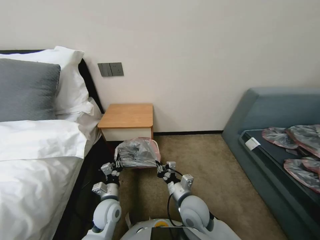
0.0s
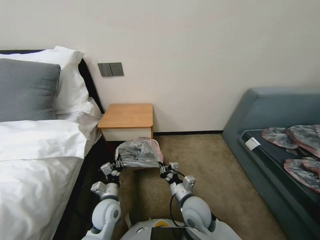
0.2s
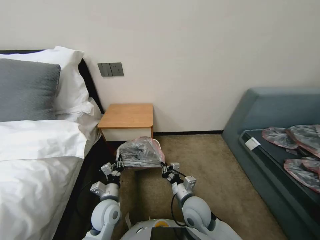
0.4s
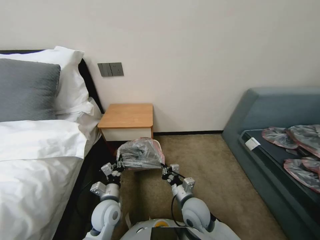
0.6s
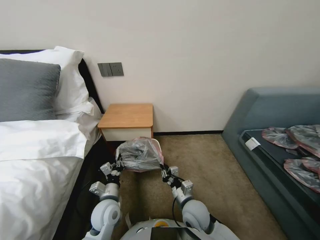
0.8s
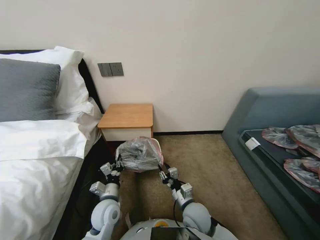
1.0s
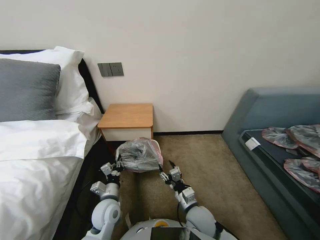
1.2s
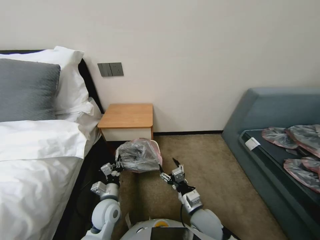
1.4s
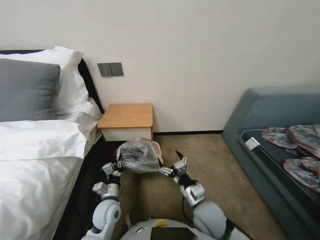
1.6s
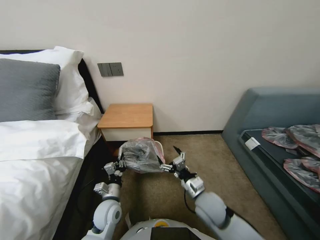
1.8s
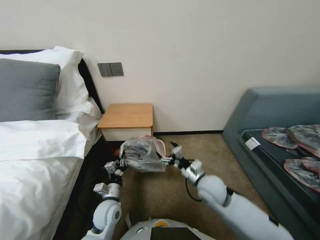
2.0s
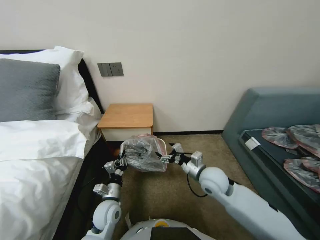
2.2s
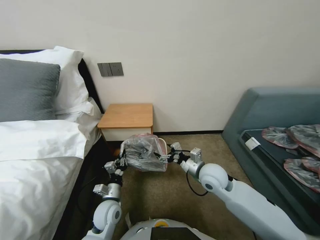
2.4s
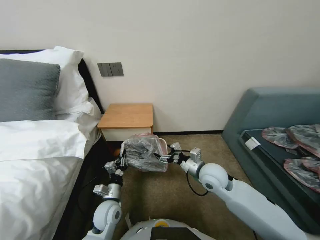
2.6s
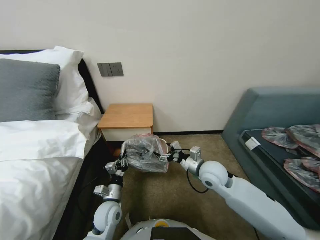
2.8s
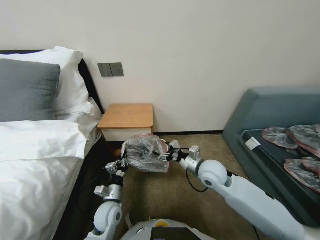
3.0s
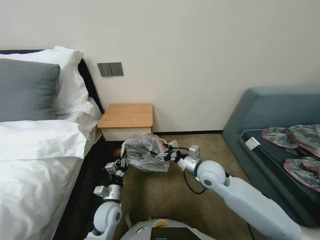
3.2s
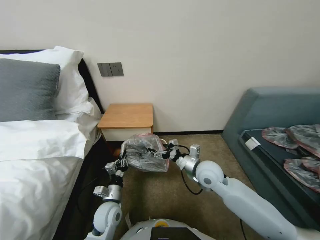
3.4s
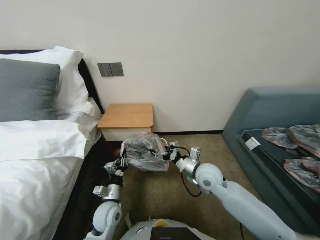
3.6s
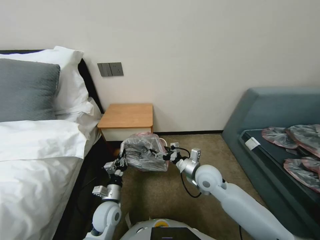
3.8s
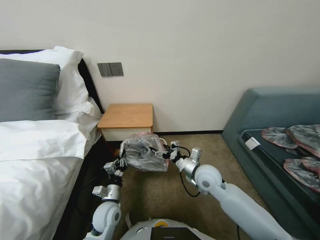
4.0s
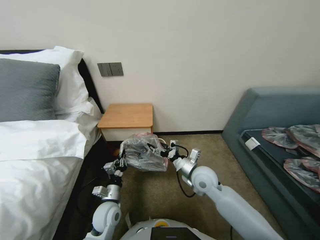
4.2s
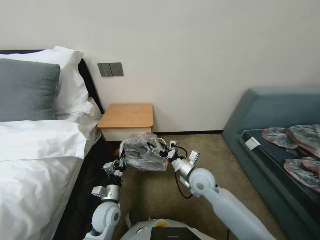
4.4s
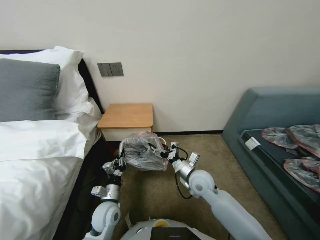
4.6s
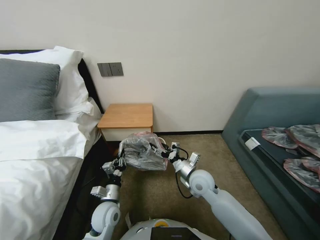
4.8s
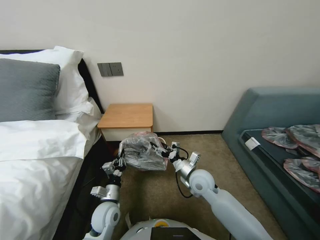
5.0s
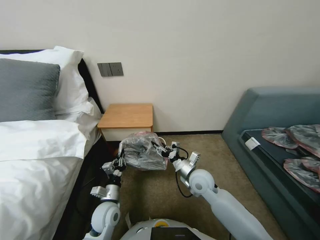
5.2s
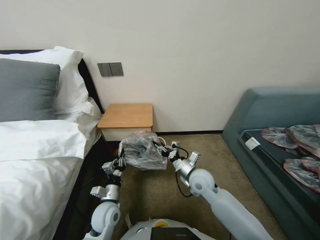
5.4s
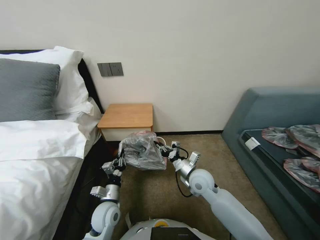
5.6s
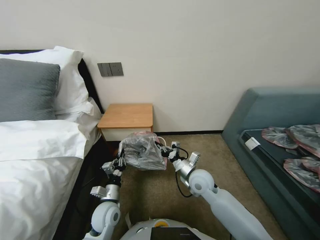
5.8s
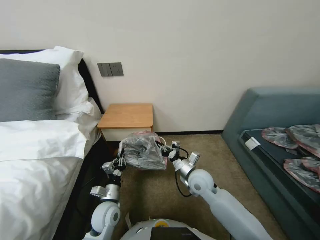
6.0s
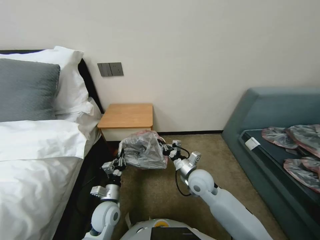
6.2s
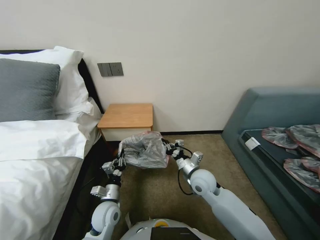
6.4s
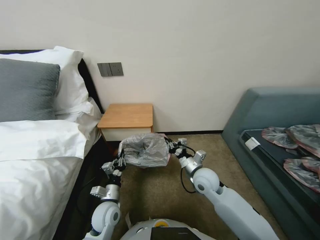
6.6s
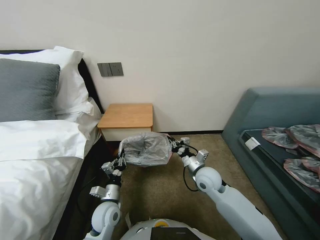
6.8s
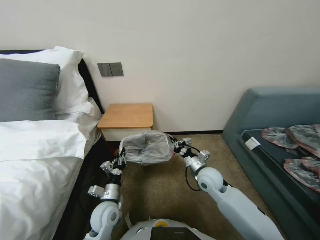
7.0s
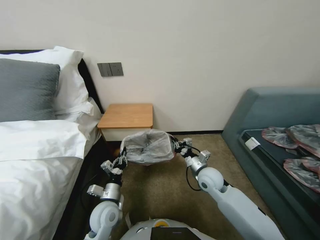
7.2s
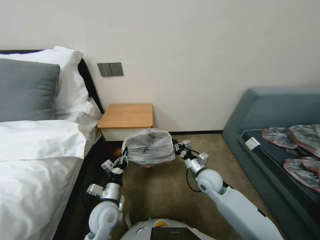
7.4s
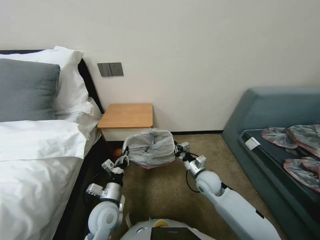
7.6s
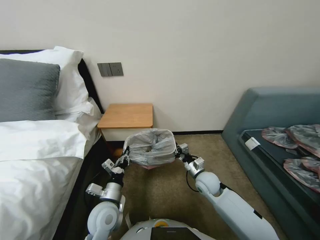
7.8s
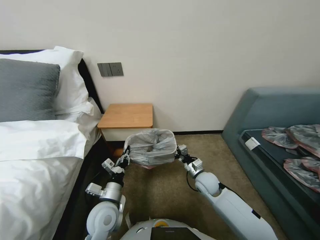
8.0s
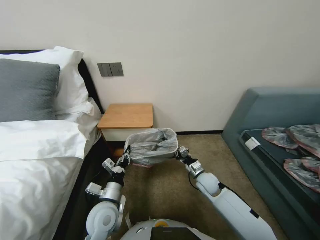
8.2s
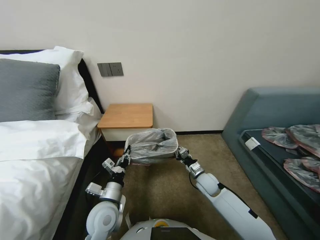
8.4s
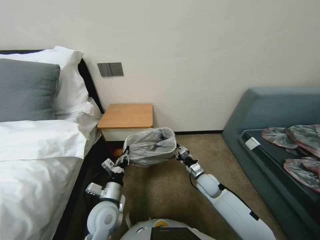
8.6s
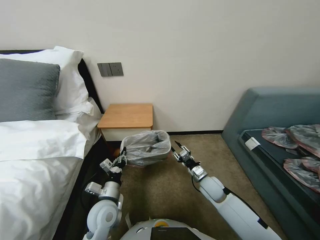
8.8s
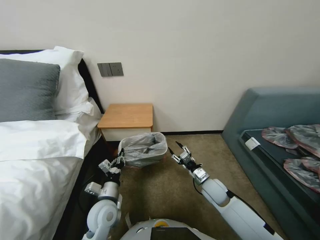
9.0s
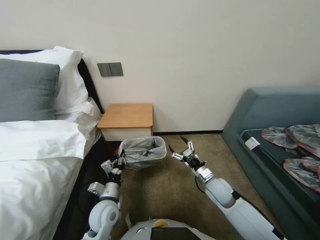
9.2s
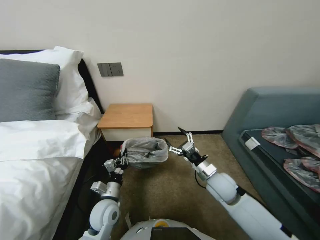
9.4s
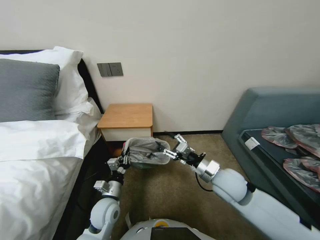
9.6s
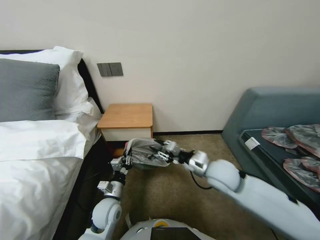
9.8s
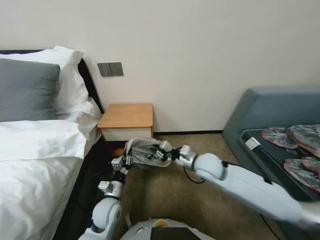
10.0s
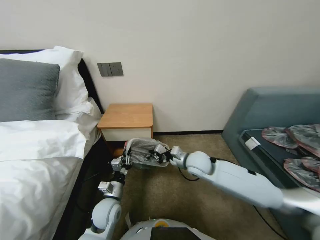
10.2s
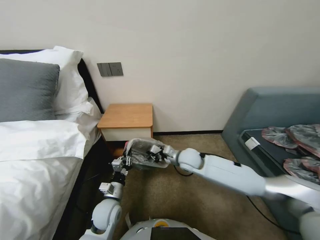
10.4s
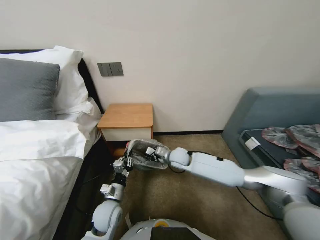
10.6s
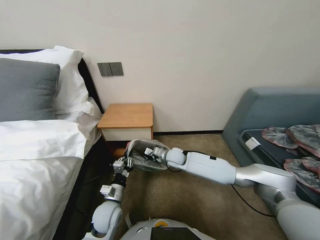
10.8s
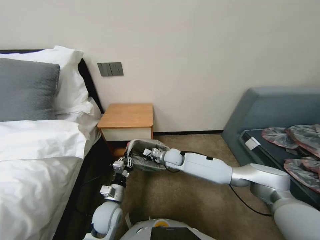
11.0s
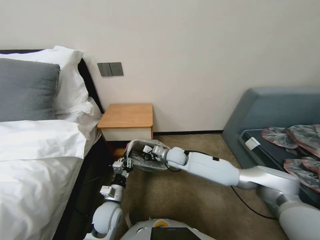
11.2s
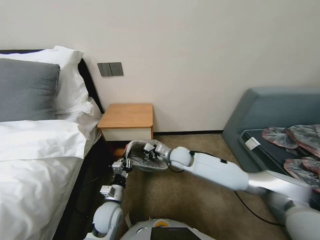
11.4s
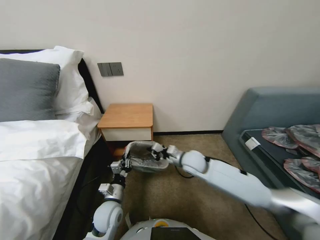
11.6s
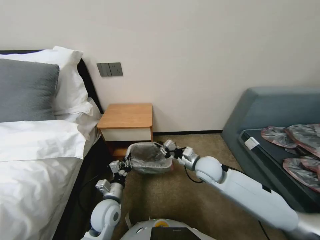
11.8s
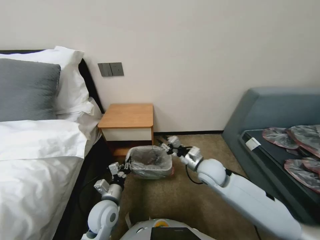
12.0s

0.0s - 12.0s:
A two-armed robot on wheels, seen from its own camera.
Task of the whole recording: Pick up the garbage bag from the table and place it over the trash can.
0.0s - 1.6s: The right gripper changes place by about 5 cm, and opens its fingers.
1.6s - 3.0s: The right gripper heads forward and upward, covering some 15 cm.
4.4s - 6.0s: The right gripper closes its fingers.
6.0s - 7.6s: The right gripper ends up some 5 cm from where it was.
7.6s - 9.0s: The right gripper opens its fingers.
9.0s - 10.4s: The right gripper travels upward, to the left and forward by roughly 15 cm, and closes up.

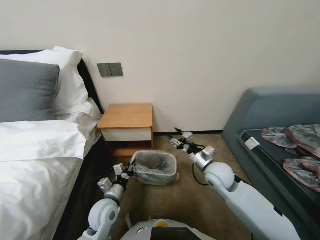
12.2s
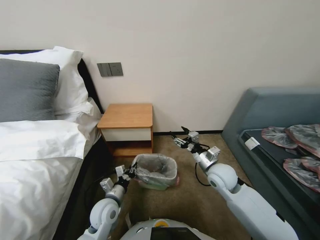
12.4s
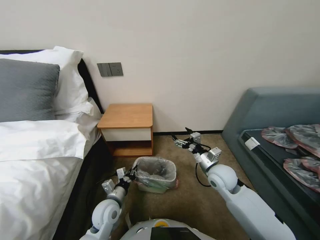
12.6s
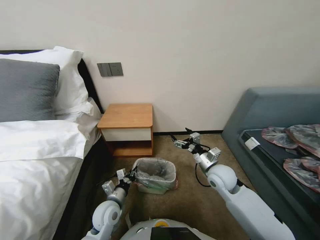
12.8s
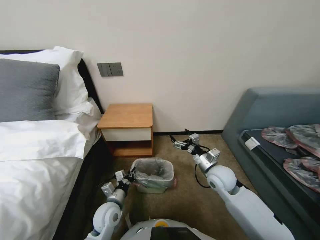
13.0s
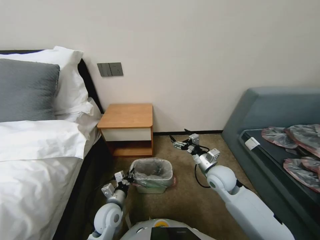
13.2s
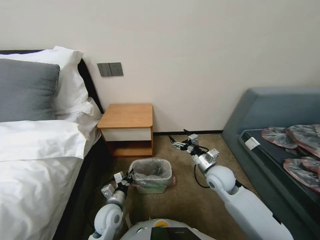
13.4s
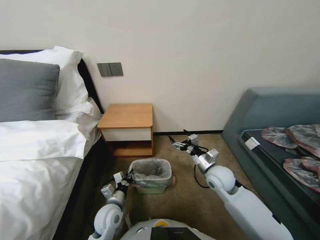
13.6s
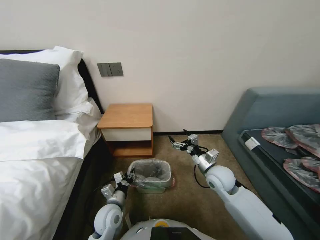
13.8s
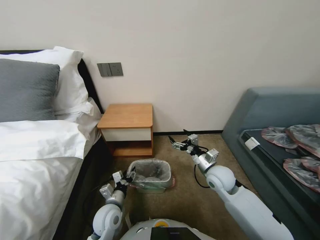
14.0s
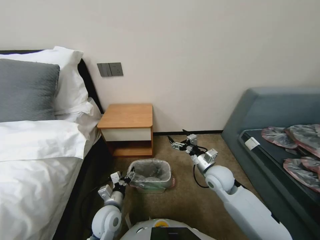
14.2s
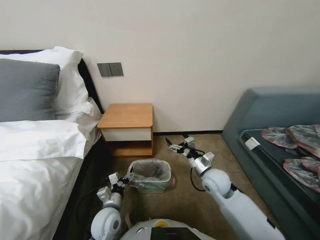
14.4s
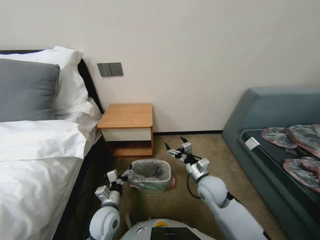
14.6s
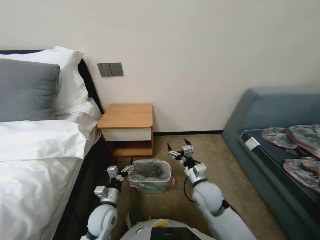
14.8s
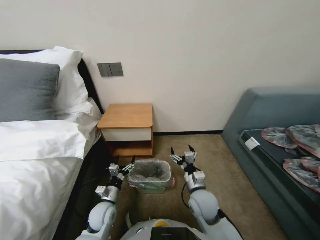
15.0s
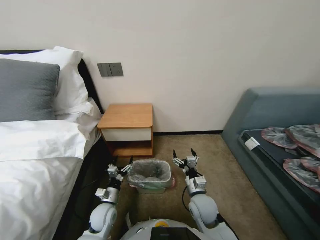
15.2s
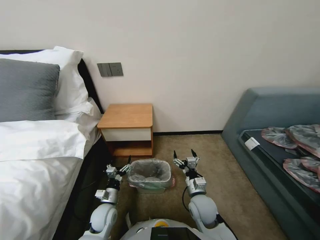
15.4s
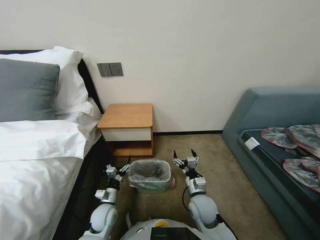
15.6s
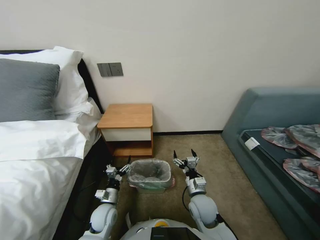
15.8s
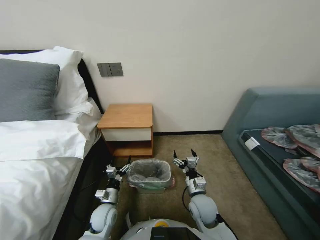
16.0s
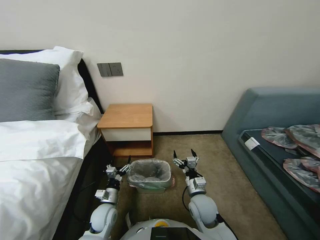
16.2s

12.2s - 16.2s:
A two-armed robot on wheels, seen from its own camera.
Task of the whole recording: Pick up the garbage bag from the table and place it over the trash can.
12.2s - 13.6s: The right gripper opens its fingers.
13.6s - 14.8s: The right gripper travels to the left by approximately 5 cm, while the left gripper opens.
14.8s - 16.2s: The grippers both shift downward by approximately 5 cm.

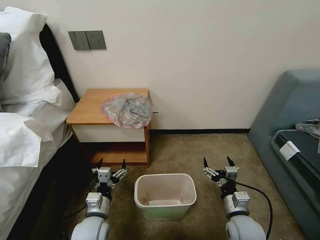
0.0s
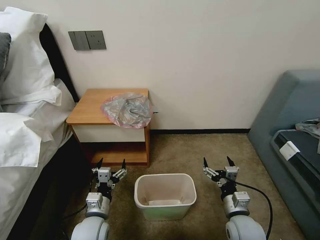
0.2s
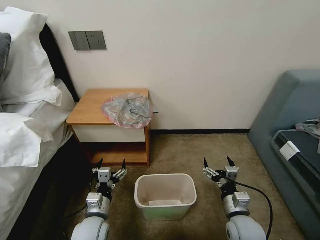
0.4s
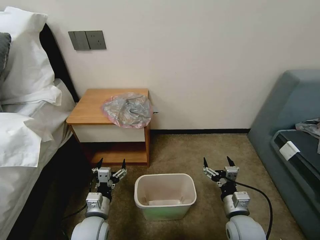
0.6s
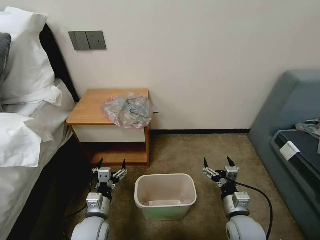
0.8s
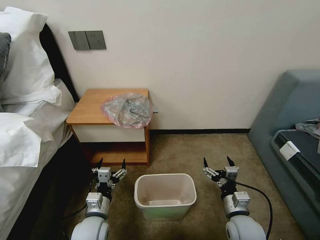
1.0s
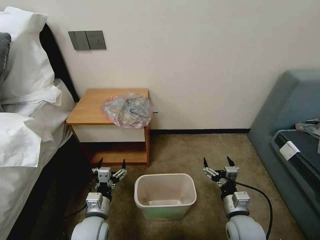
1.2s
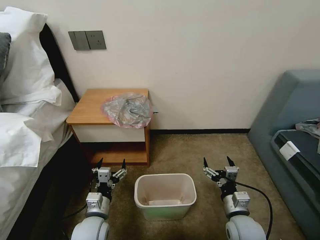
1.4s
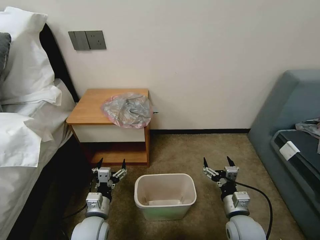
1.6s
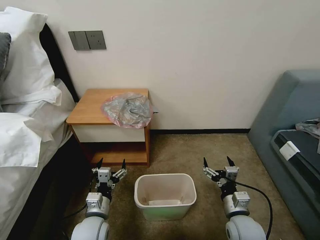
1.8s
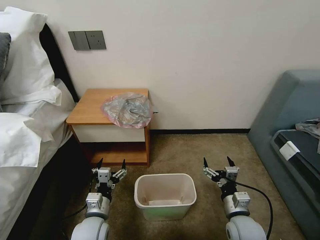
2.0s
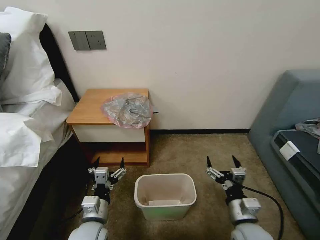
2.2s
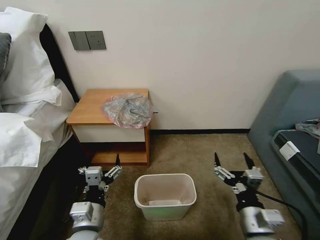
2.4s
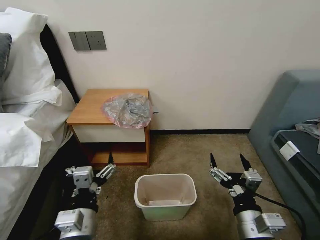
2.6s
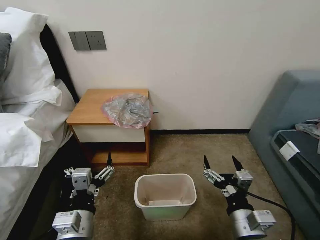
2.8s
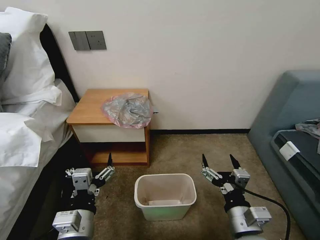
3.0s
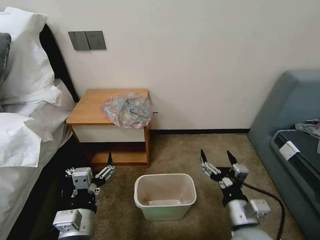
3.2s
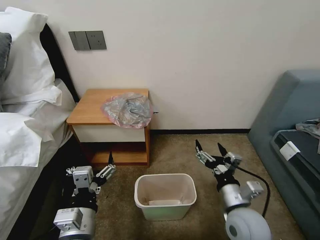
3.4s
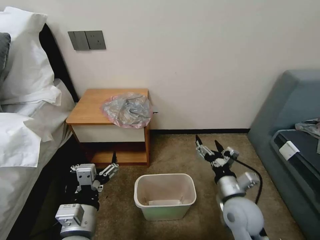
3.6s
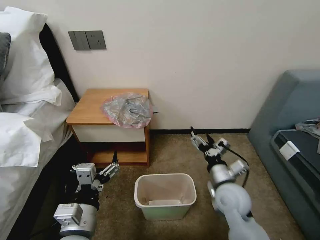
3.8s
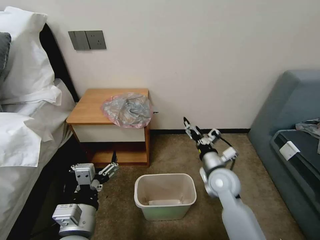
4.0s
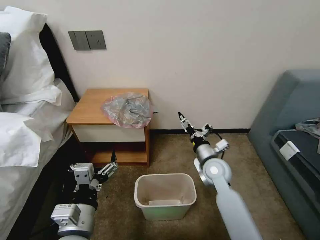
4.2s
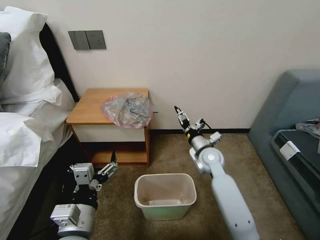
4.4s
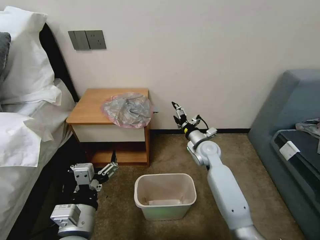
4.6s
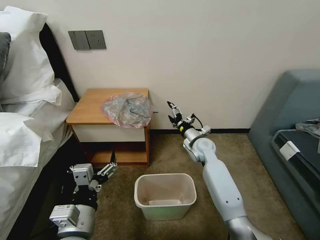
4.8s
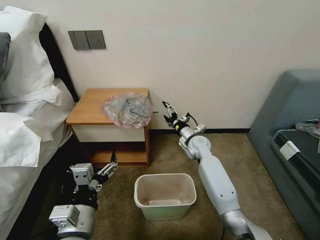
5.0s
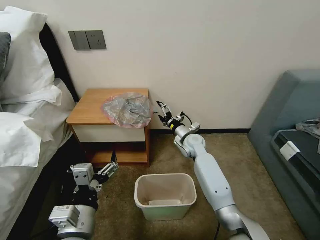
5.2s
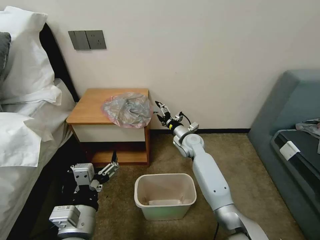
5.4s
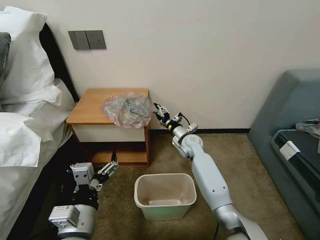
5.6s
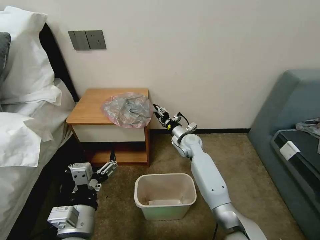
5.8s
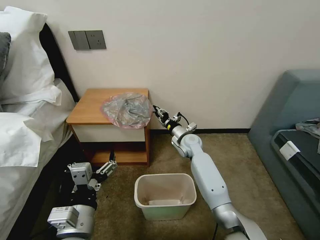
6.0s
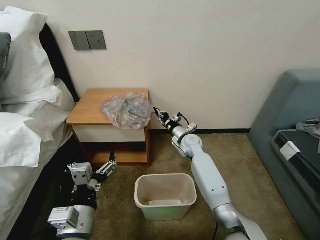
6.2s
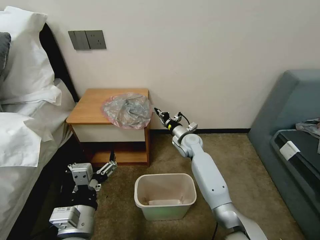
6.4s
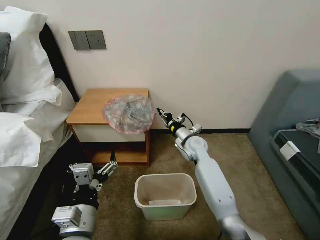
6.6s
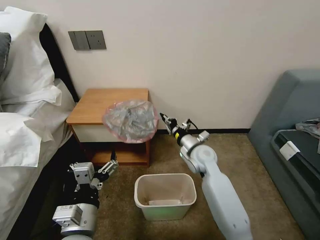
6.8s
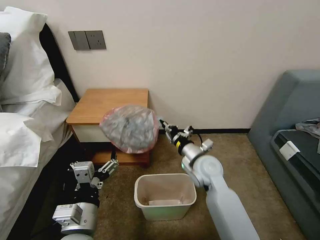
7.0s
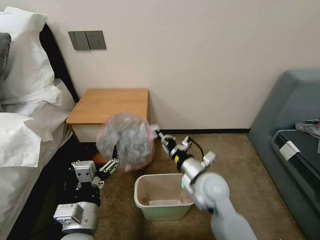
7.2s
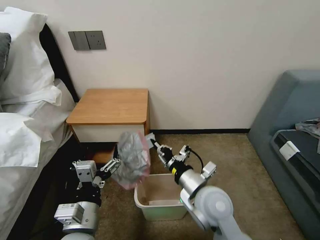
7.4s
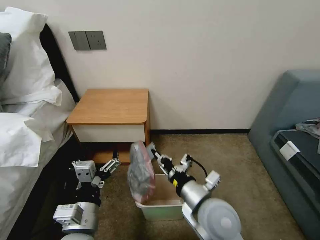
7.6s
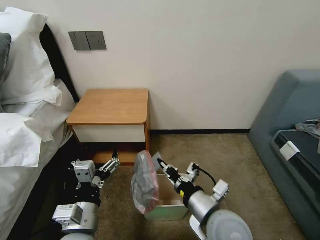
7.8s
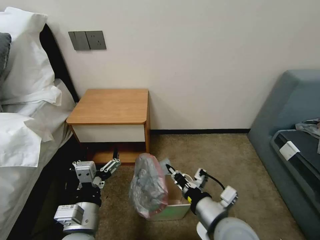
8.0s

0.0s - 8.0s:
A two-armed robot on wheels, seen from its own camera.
Task of the whole recording: Pick up the garbage bag from the table and place it over the trash can.
1.6s - 3.2s: The left gripper heads upward and backward, covering roughly 15 cm. Meanwhile the right gripper heads upward, covering some 10 cm.
3.2s - 4.8s: The right gripper goes some 30 cm forward.
4.8s - 6.4s: The right gripper closes up.
6.4s - 8.0s: The right gripper moves backward, some 35 cm.
